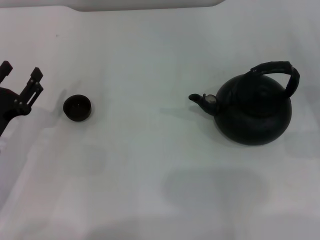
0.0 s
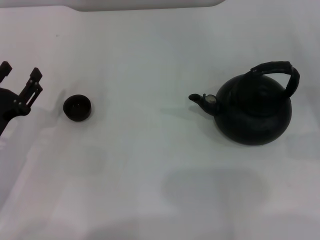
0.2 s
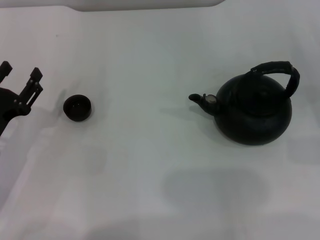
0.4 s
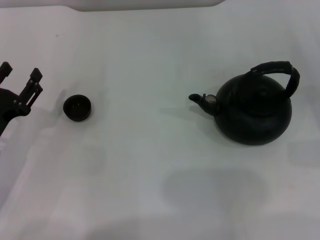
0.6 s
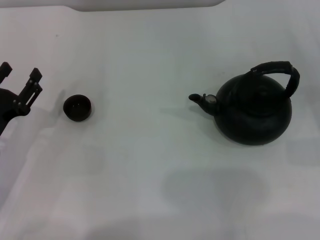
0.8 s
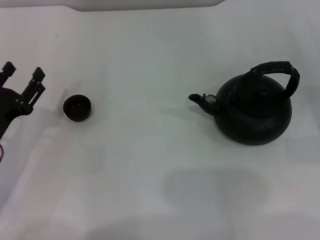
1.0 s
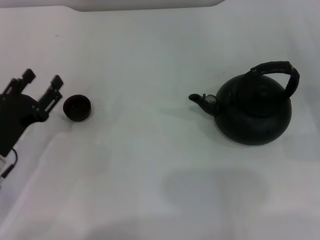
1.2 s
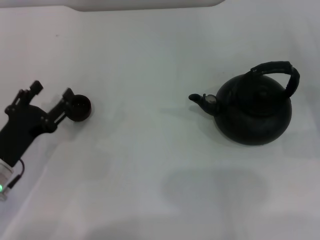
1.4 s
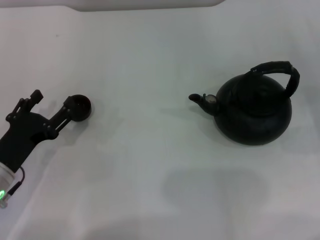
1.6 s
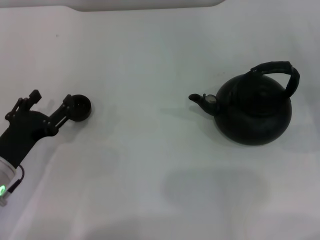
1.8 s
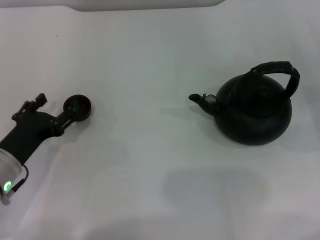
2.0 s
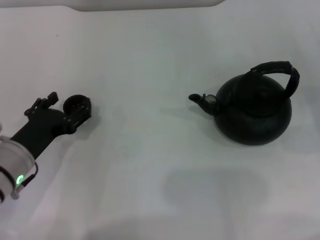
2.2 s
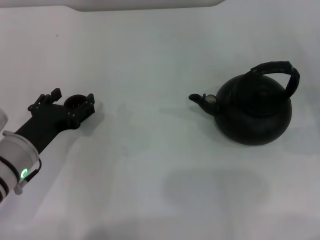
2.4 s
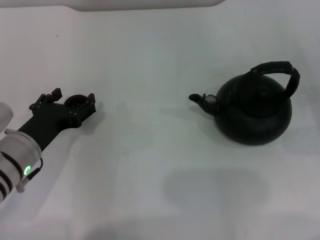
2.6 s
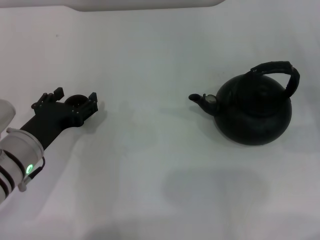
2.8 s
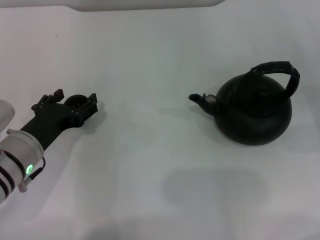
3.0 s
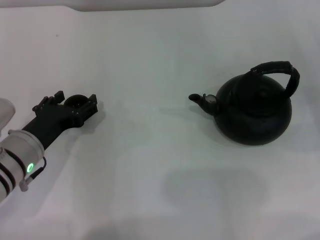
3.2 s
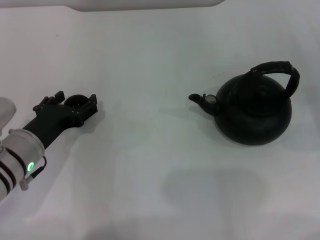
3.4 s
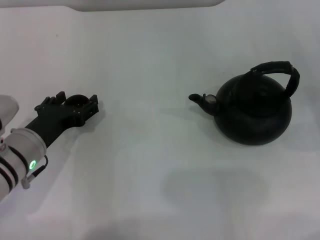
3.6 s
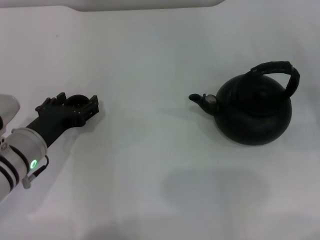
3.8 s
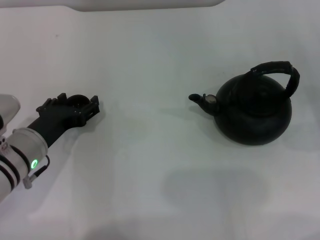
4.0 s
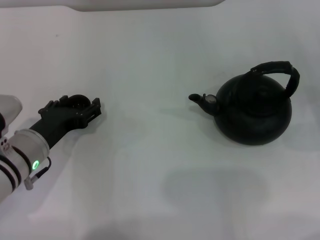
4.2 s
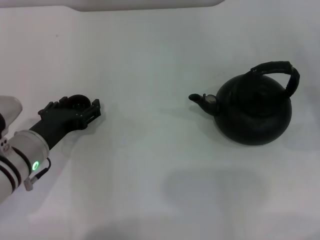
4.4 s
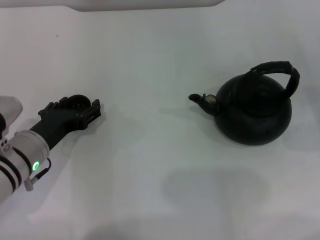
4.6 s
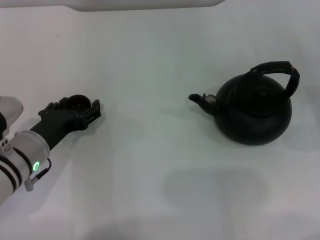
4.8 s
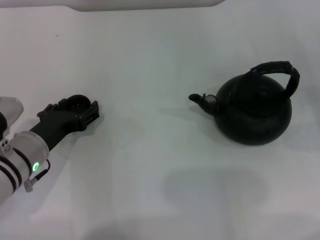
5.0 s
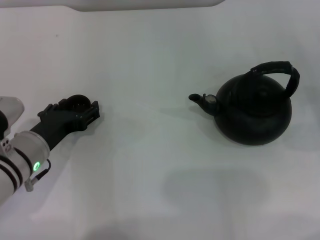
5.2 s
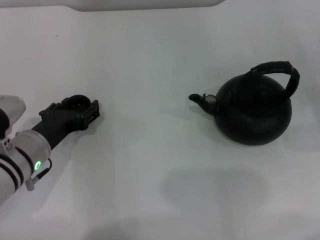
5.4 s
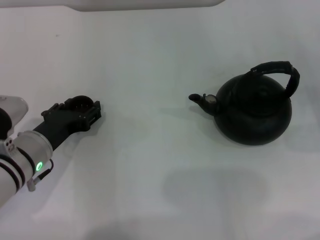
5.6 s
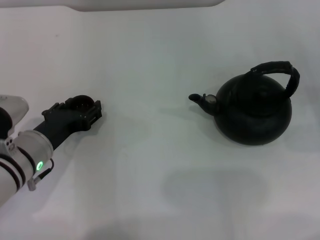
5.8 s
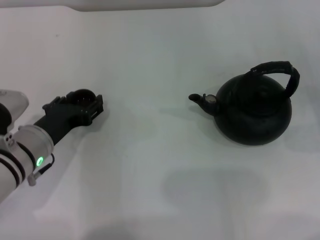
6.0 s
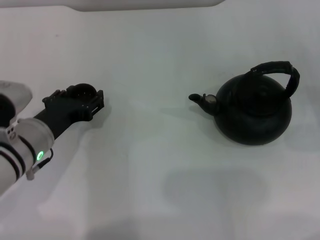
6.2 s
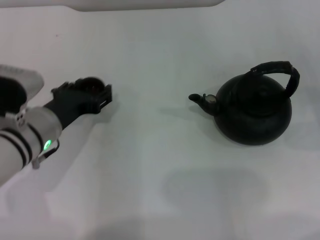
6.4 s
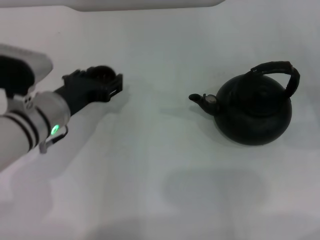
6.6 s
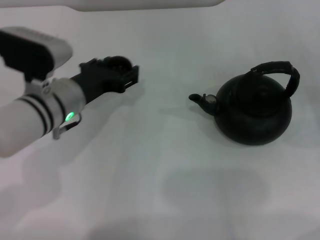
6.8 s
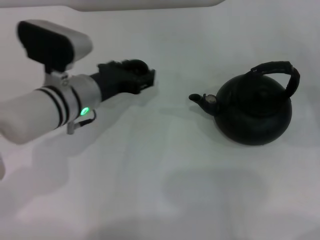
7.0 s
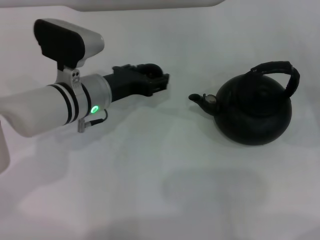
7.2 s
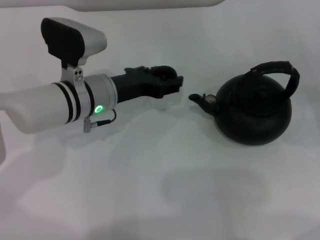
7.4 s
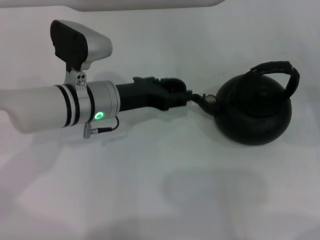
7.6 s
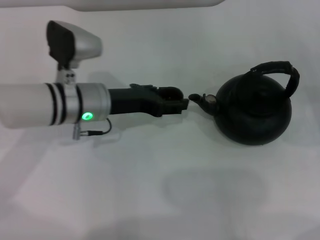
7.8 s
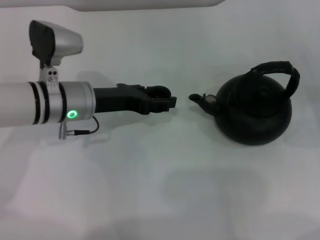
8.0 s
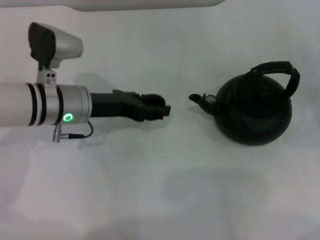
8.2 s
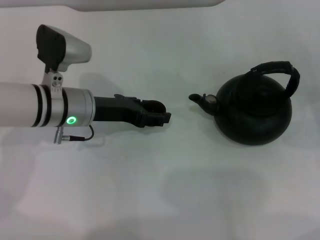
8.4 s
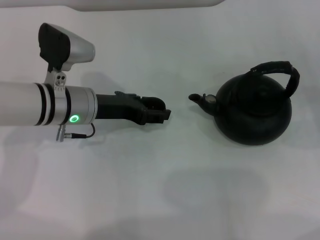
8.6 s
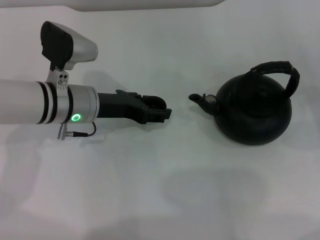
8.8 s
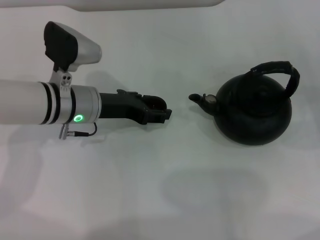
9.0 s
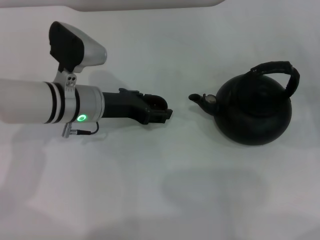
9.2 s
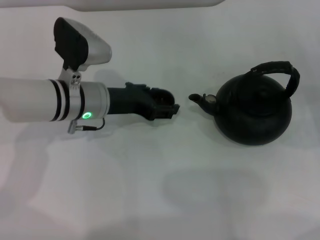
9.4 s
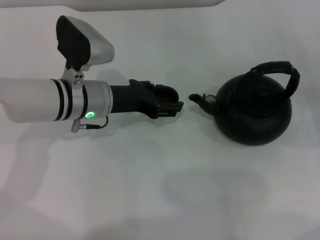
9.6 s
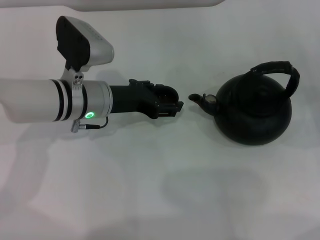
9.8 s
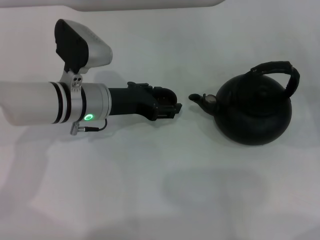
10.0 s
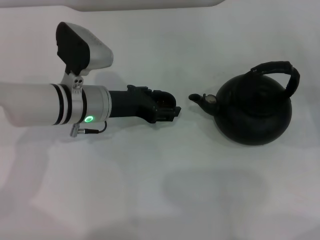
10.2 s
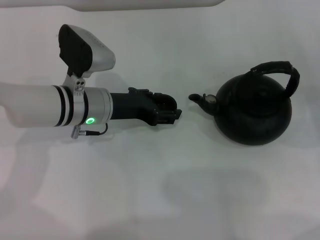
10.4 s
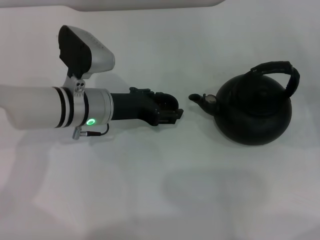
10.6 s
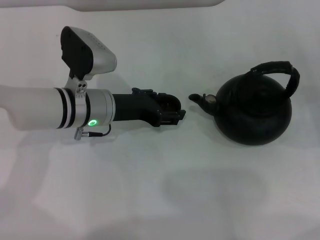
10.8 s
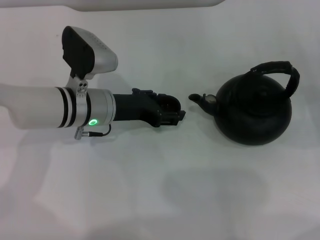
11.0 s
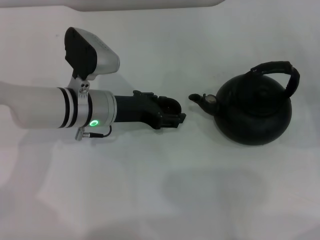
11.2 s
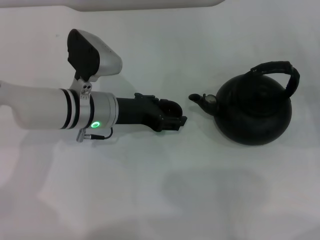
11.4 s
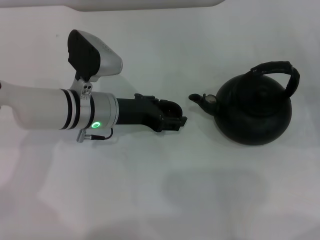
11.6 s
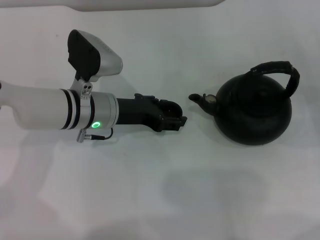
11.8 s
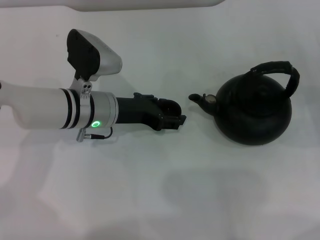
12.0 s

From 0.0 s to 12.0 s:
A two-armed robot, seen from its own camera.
Task of the whole recording: Grasp the handle of the teapot with one hand and pour tea into the teacup.
Step, from 0.0 s to 6.2 s: Pick up the teacup with the left gripper.
From 0.0 s to 1.6 s: The left gripper opens its fingers.
From 1.6 s to 3.0 s: The left gripper changes place by roughly 5 cm.
From 3.0 s to 4.4 s: There are only small adjustments of the grippers.
From 4.4 s to 6.0 s: The left gripper closes its fingers.
From 6.0 s to 7.6 s: The left gripper shifts roughly 10 cm to the right and forward.
From 7.6 s to 10.4 s: The grippers make only small movements.
From 10.4 s to 12.0 s: Both grippers stay put.

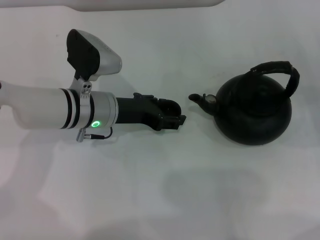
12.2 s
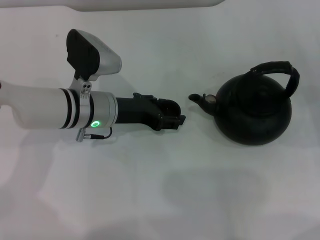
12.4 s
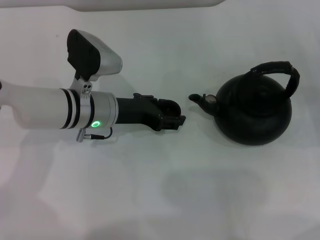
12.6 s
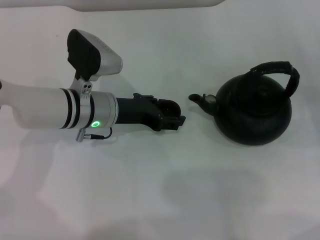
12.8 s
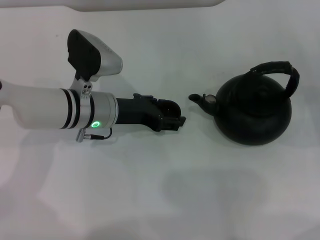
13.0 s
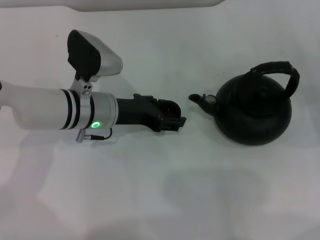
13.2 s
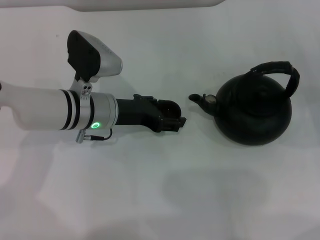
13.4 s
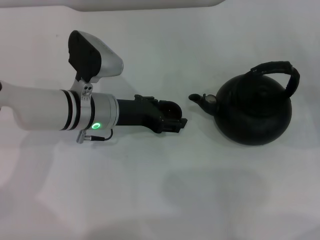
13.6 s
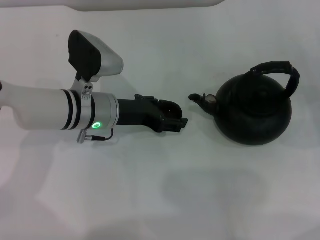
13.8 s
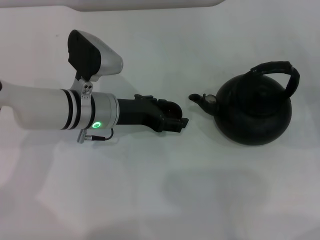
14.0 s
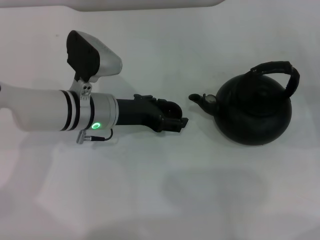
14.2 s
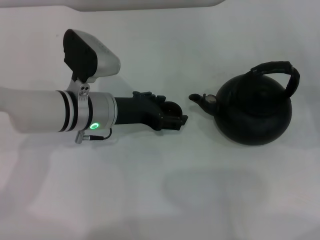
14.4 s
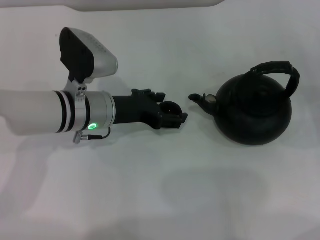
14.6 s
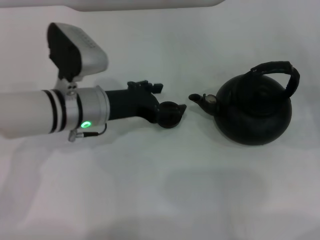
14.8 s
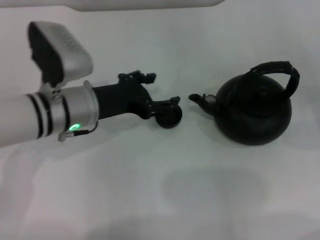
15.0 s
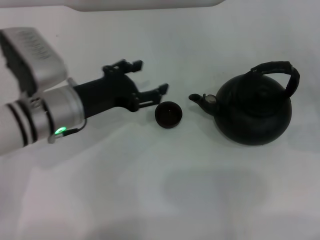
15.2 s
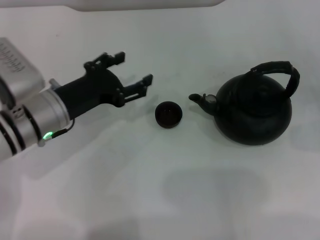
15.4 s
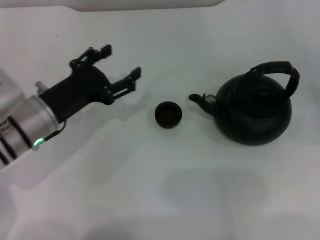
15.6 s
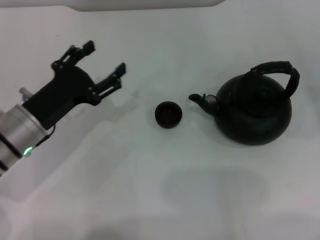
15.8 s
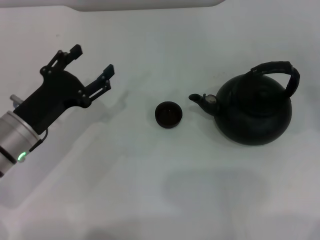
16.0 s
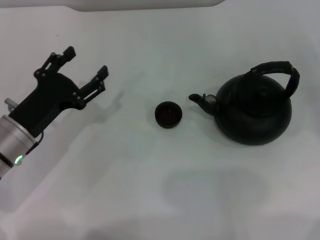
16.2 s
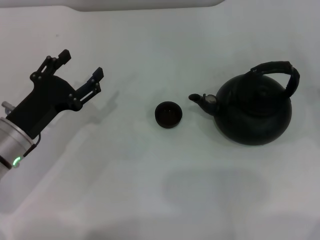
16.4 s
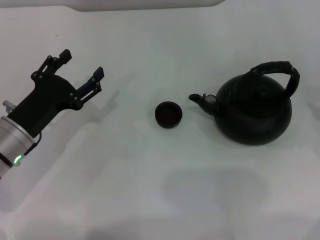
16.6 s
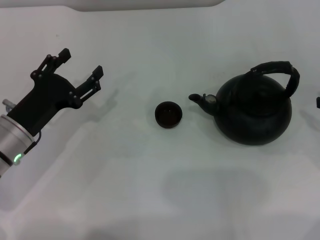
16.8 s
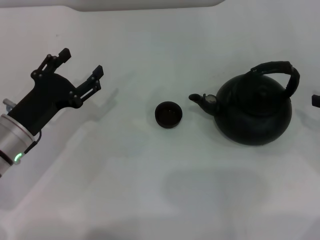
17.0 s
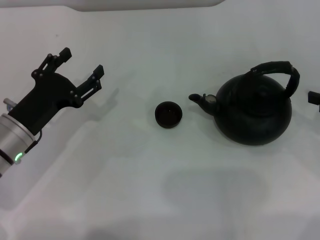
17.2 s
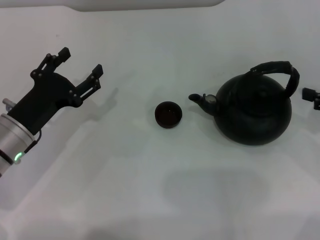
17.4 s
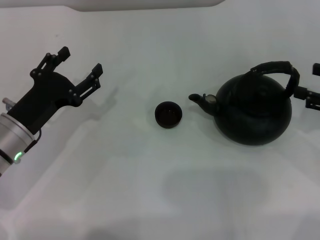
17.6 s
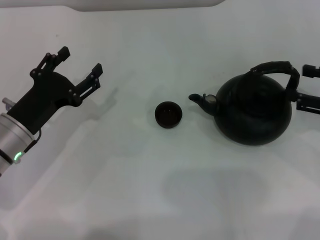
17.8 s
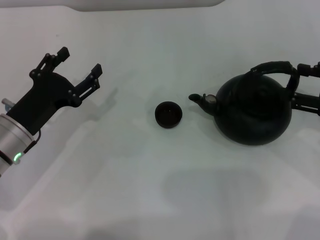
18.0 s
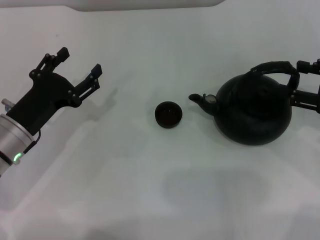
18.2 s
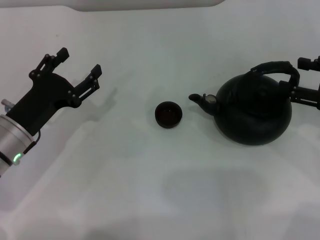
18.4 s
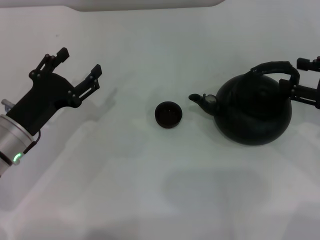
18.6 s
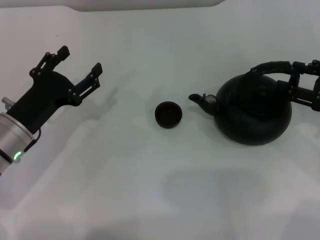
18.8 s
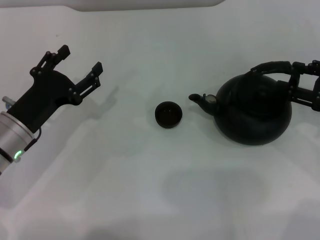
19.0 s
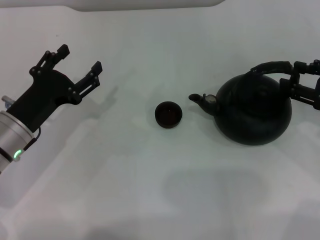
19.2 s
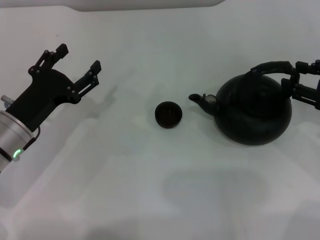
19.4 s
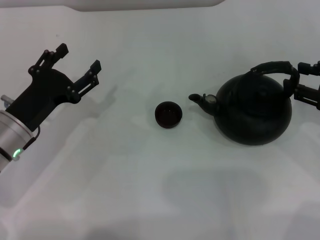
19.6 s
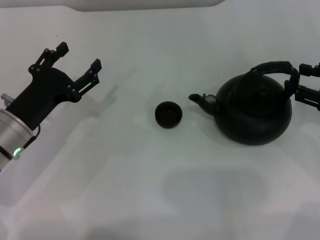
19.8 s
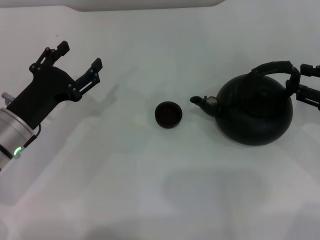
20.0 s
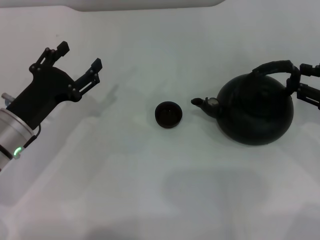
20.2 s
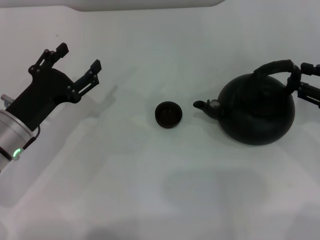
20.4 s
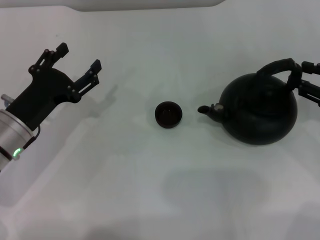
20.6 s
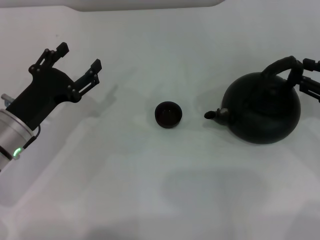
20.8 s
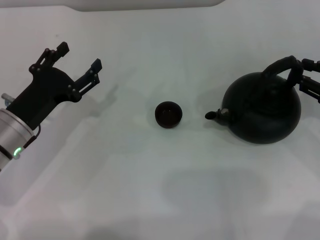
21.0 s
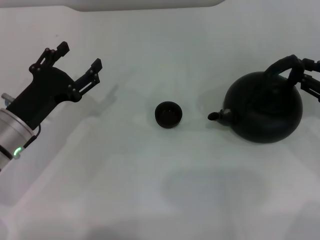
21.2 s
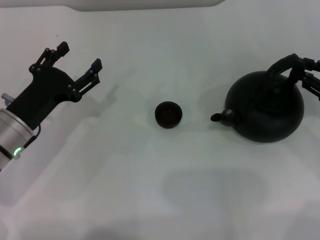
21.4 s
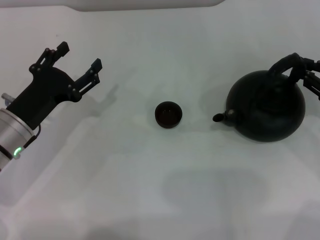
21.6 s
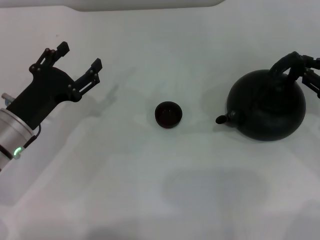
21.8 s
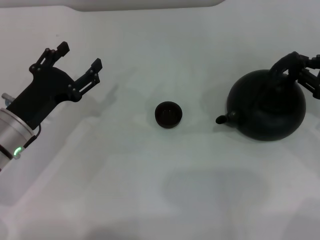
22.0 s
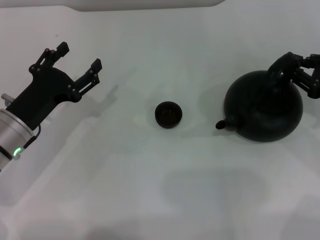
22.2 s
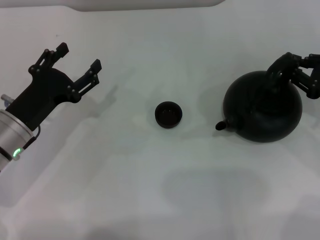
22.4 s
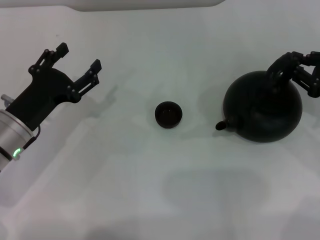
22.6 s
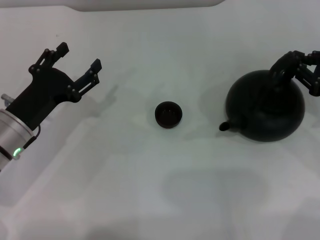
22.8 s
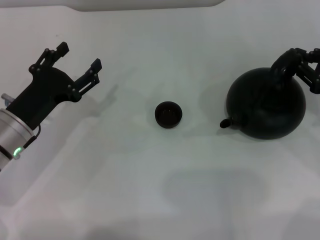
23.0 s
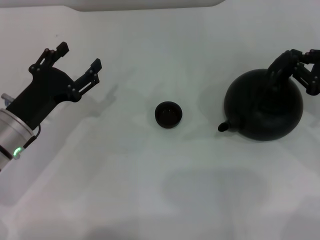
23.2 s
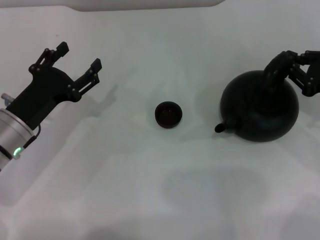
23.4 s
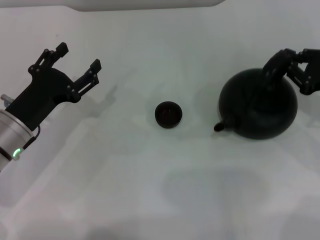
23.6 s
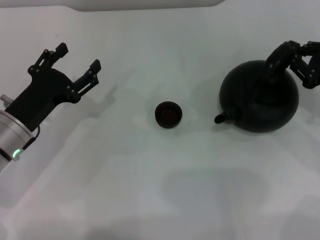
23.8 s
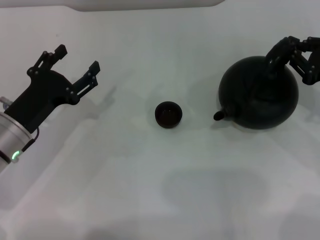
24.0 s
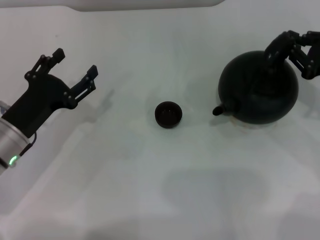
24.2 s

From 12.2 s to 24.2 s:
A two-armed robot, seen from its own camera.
Task of the whole recording: Grasp the handle of the teapot with one hand and pour tea into the teacup.
Step, from 12.2 s to 14.8 s: Place the teacup in the center of view with the left gripper.
From 12.2 s to 13.8 s: The left gripper opens.
From 13.8 s to 15.2 s: The left gripper ends up about 5 cm from where it was, and opens.
From 15.2 s to 16.6 s: The left gripper shifts about 5 cm to the left; the right gripper heads upward, covering about 5 cm.
From 16.6 s to 18.2 s: The right gripper is displaced to the left by some 5 cm.
From 18.2 s to 19.8 s: There are only small adjustments of the grippers.
From 19.8 s to 21.2 s: The two grippers keep their place.
From 21.2 s to 24.2 s: There are only small adjustments of the grippers.
